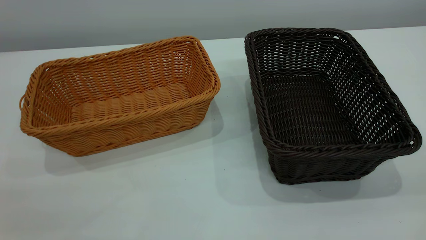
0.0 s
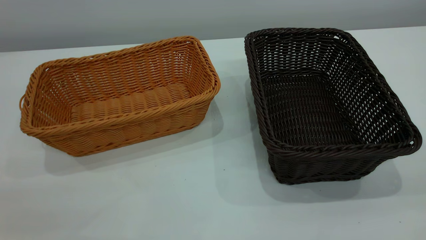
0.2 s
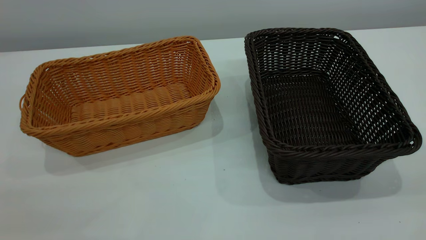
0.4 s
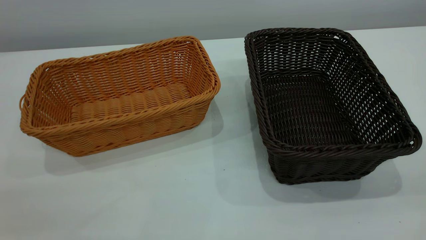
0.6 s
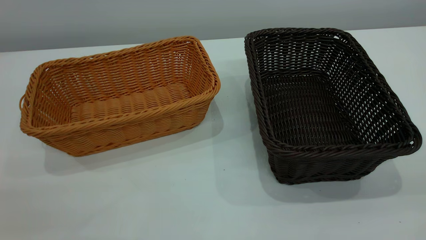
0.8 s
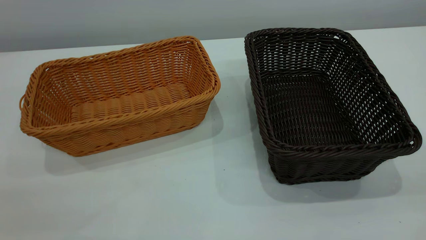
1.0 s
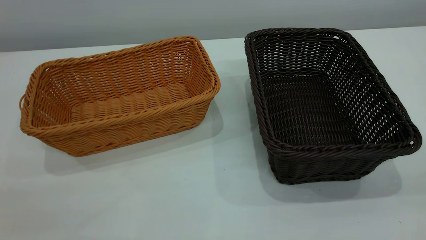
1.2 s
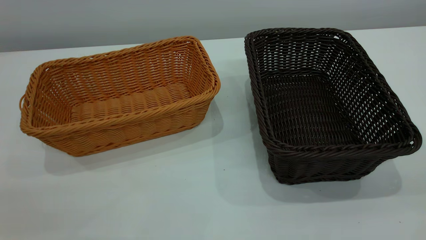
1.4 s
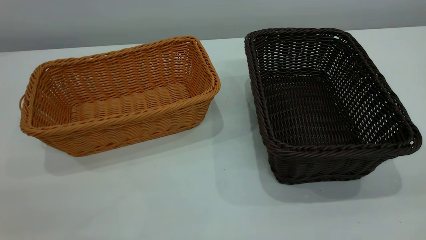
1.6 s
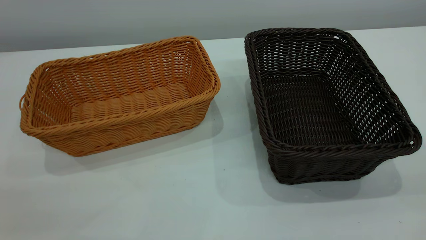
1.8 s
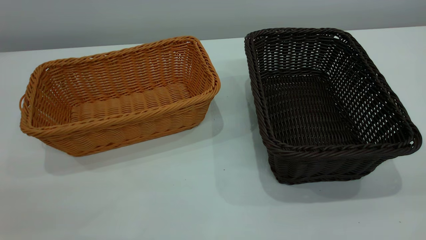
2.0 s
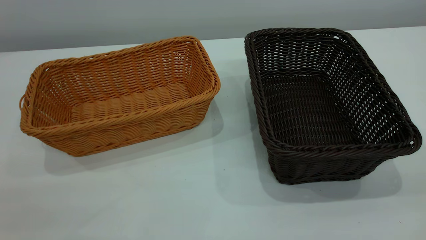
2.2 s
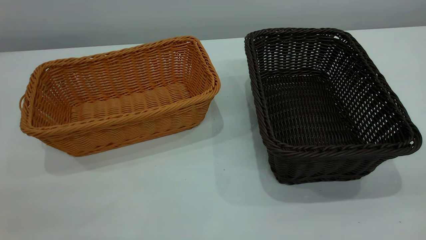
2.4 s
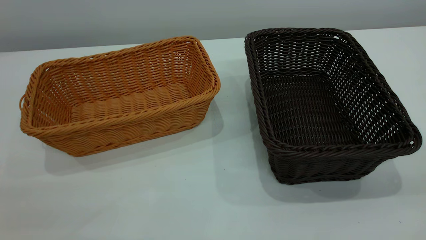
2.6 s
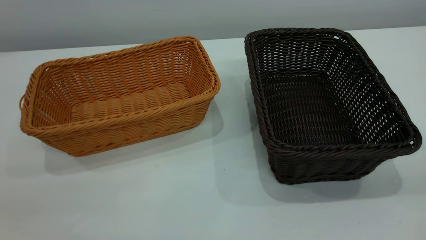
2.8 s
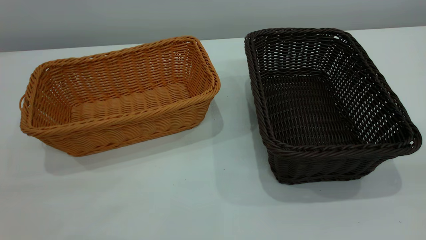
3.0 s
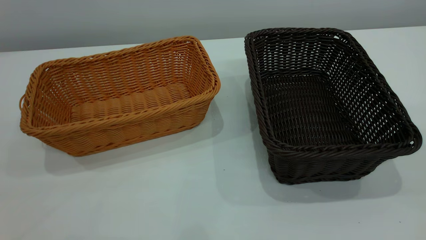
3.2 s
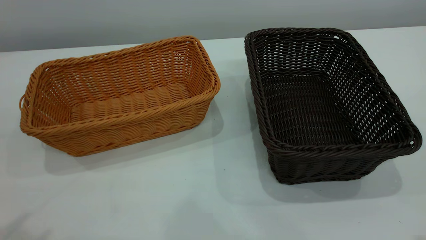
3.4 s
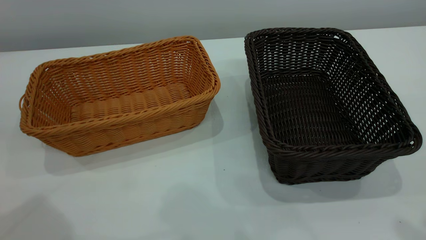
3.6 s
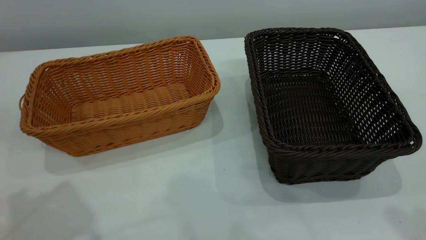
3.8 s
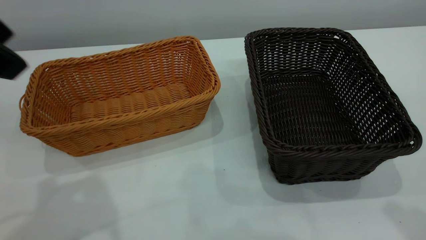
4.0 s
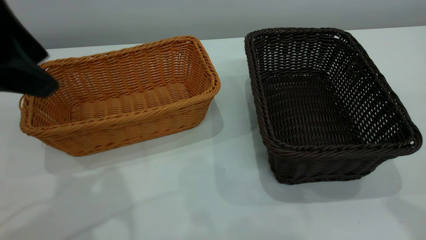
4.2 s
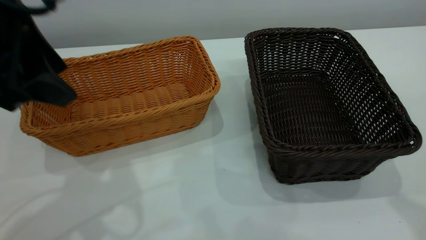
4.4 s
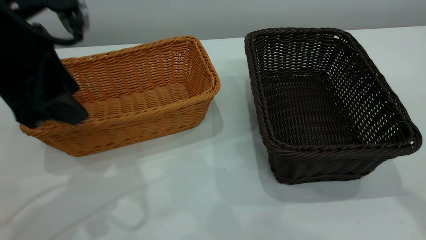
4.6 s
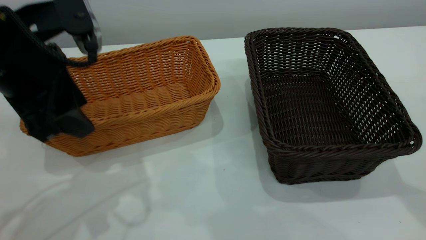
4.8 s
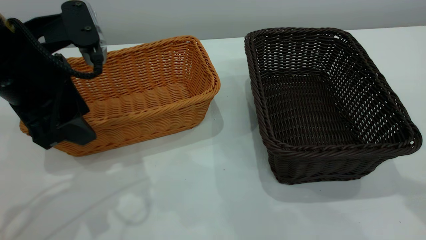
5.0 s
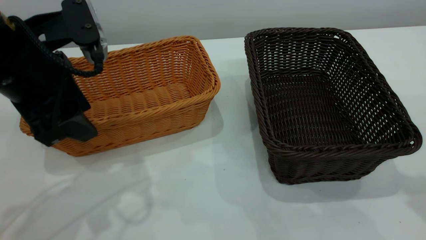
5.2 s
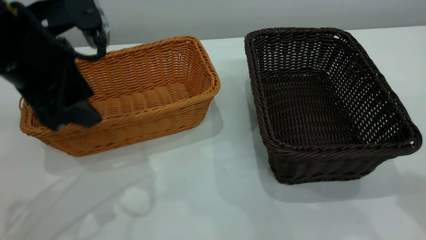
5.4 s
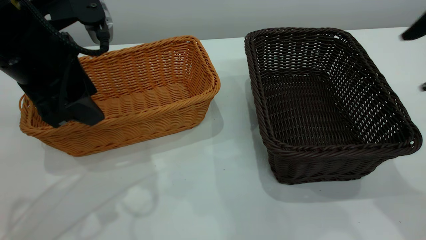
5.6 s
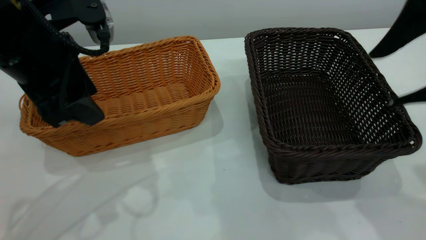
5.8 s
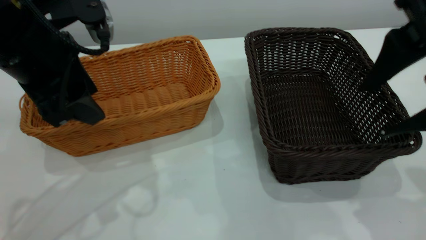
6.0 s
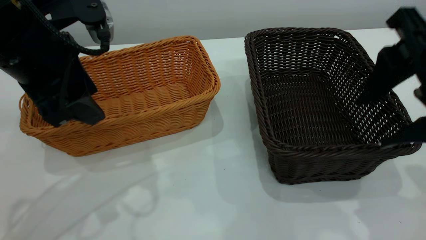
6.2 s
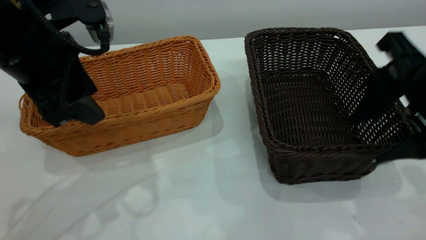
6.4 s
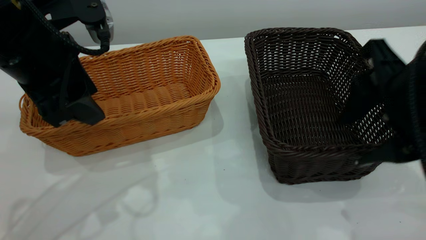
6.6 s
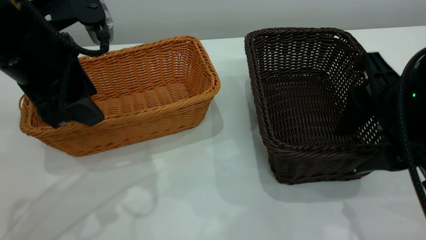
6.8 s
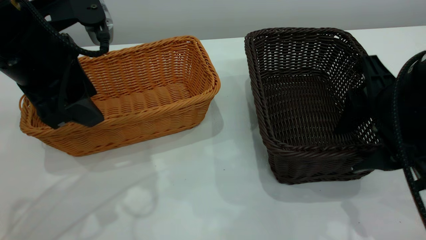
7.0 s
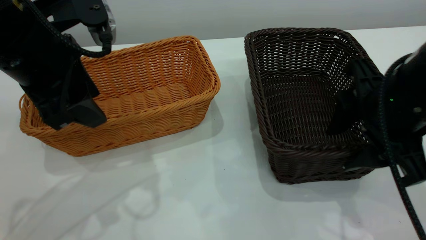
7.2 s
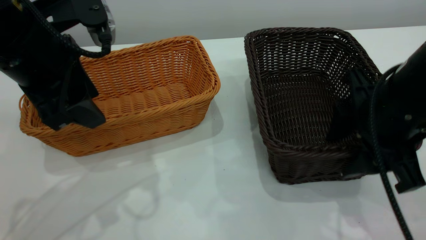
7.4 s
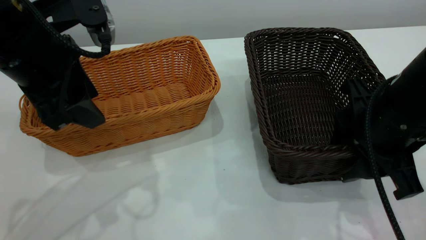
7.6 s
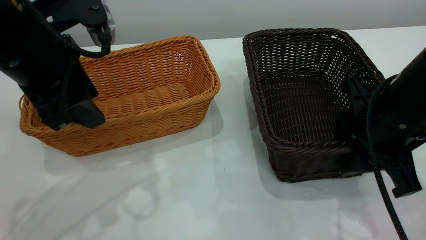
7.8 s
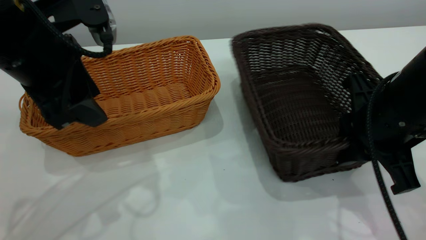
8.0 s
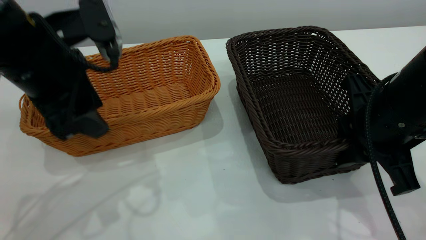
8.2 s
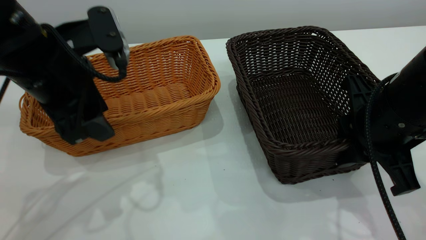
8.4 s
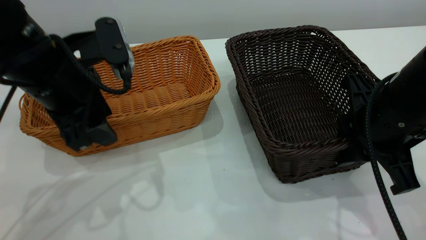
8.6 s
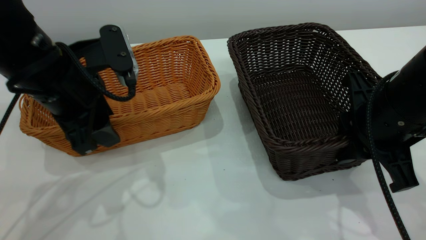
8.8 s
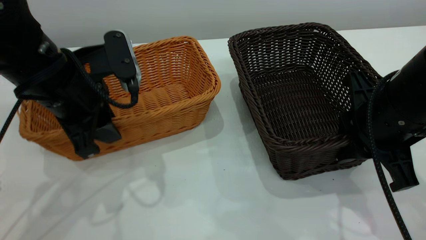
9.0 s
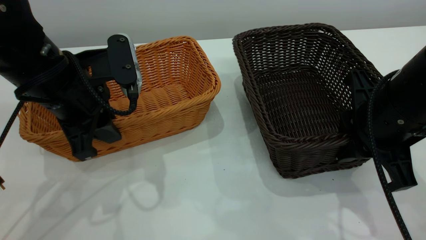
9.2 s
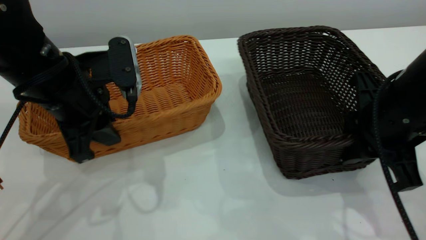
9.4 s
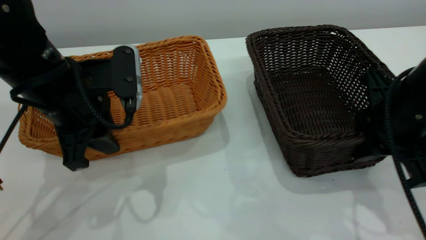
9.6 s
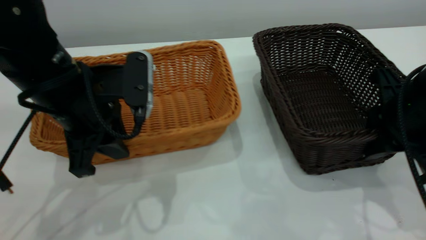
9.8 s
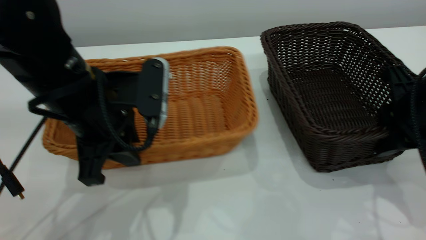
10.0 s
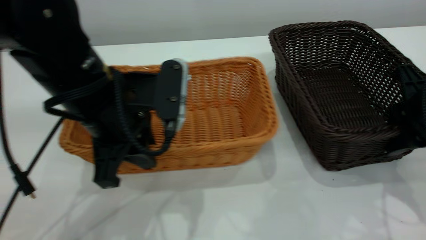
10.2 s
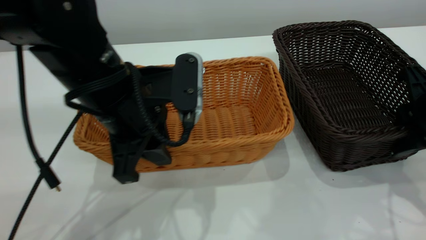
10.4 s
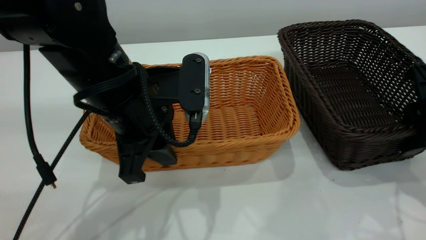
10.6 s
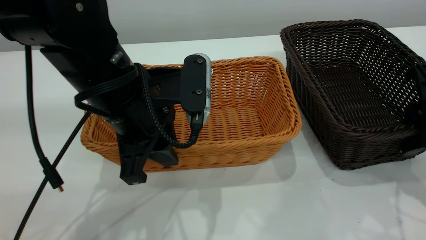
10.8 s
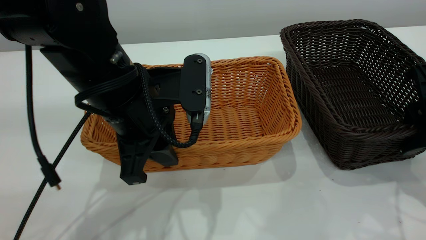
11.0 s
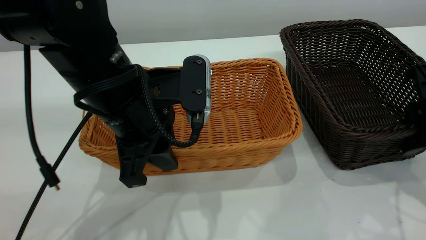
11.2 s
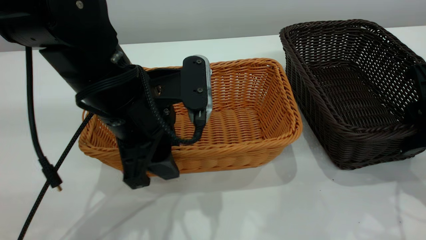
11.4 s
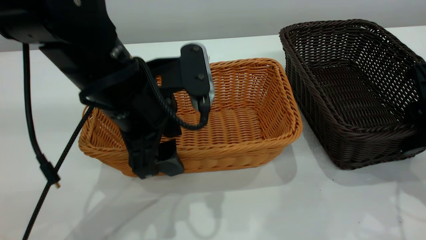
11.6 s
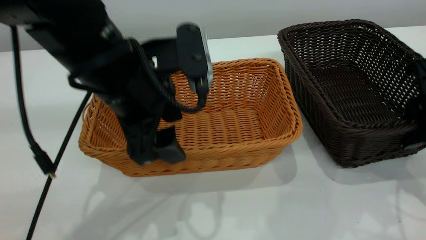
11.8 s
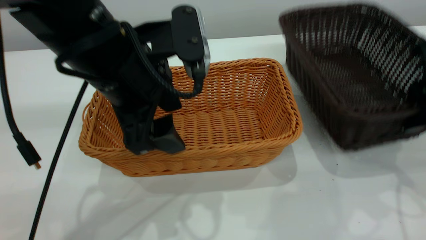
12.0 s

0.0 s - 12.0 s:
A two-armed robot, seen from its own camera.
Task of the whole recording: the left gripper grasp the brown basket and place it in the center of the table, the right gripper grasp the black basket and place it inside the brown one.
Step, 0.0 s - 11.6 s: Place the light-colored basket in the center.
0.0 s - 1.6 s: Both grippers stay put.
3.0 s - 4.4 s: The left gripper shifts some 25 cm forward and downward.
4.4 s - 6.0 s: The left gripper shifts by roughly 5 cm, while the right gripper goes approximately 15 cm downward, forward and to the left.
6.0 s - 7.6 s: The right gripper shifts about 10 cm downward.
7.6 s - 9.0 s: The left gripper shifts about 5 cm downward, and closes its fingers, while the right gripper closes up.
9.0 s - 10.4 s: The grippers both shift to the right by roughly 10 cm.
10.4 s - 12.0 s: The left gripper opens its fingers.

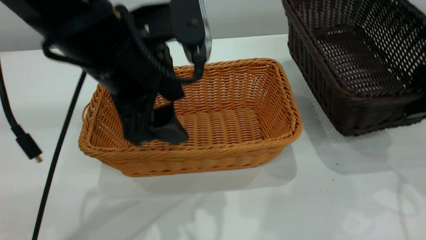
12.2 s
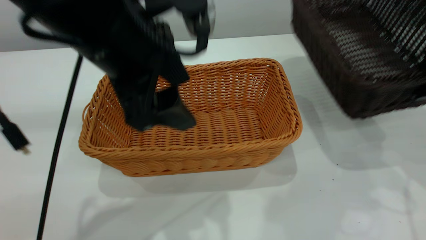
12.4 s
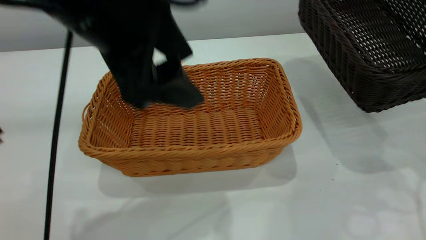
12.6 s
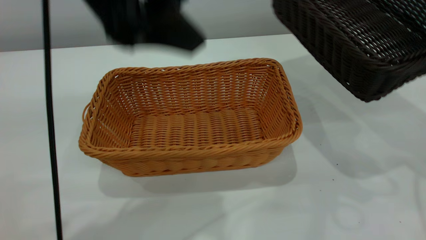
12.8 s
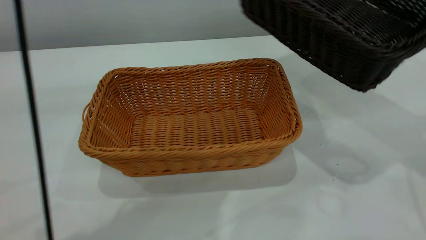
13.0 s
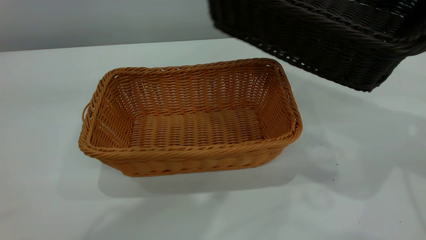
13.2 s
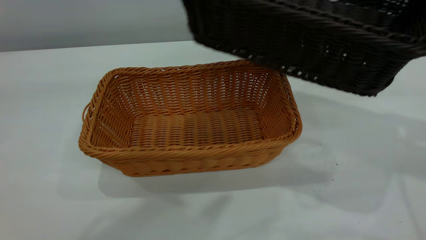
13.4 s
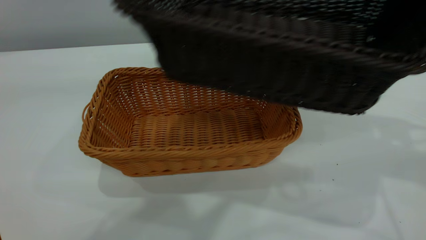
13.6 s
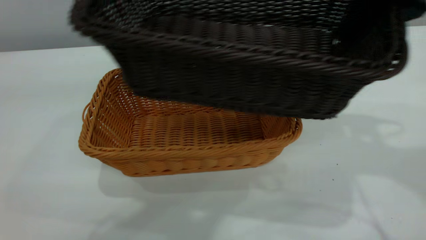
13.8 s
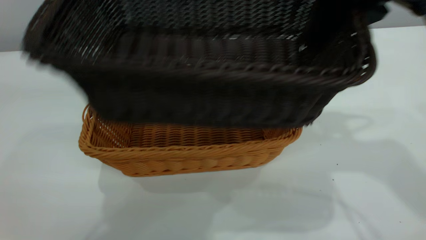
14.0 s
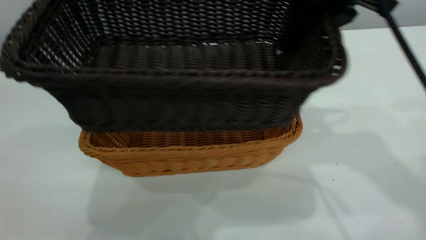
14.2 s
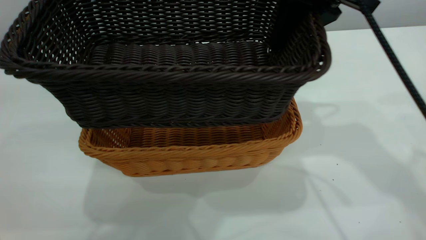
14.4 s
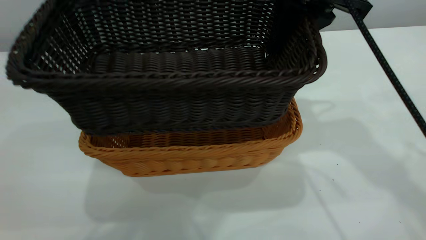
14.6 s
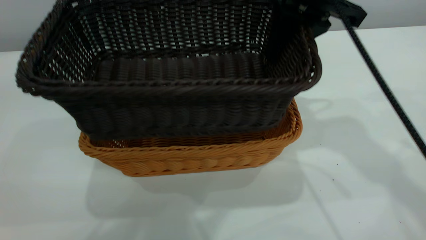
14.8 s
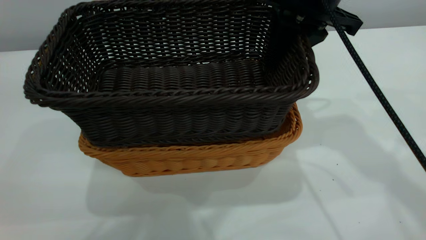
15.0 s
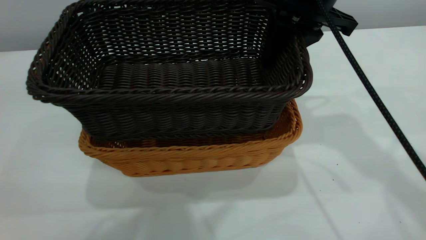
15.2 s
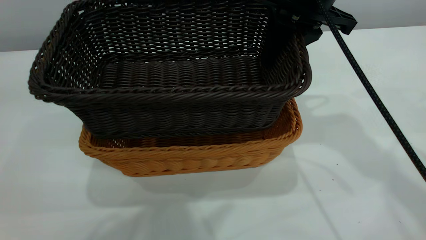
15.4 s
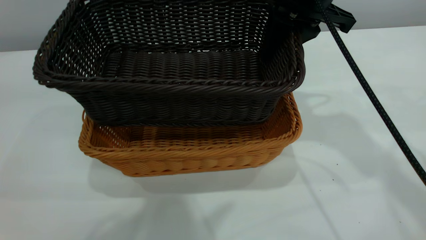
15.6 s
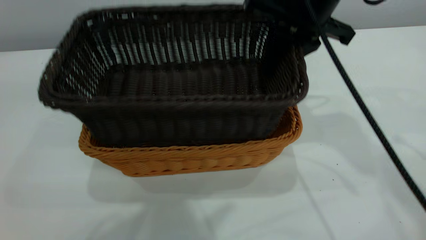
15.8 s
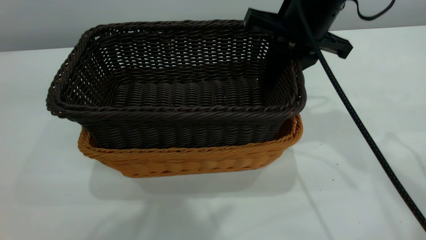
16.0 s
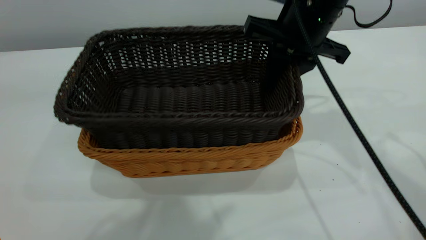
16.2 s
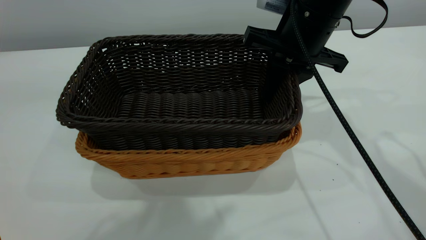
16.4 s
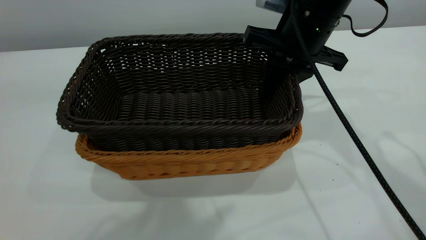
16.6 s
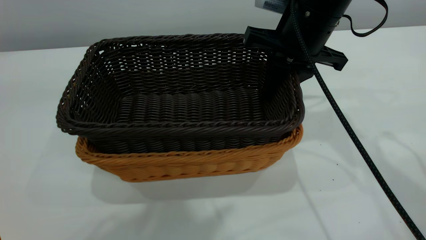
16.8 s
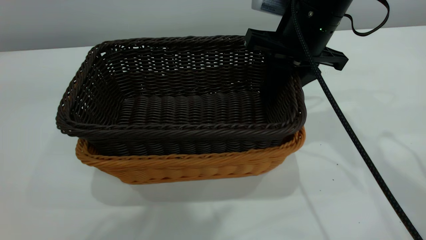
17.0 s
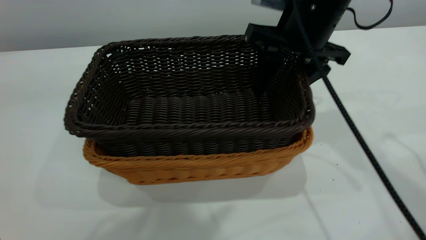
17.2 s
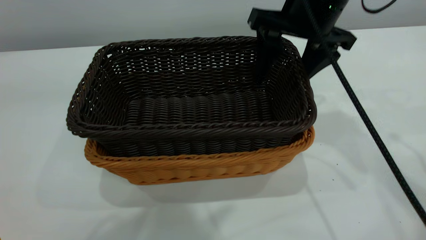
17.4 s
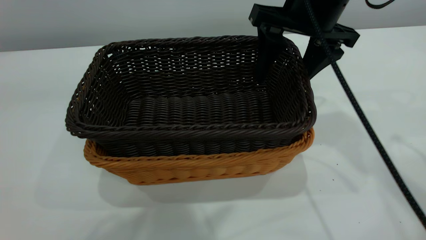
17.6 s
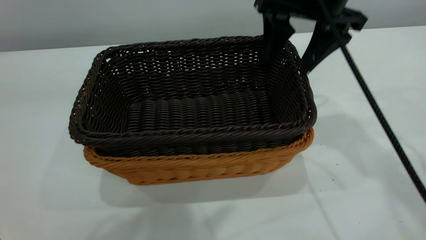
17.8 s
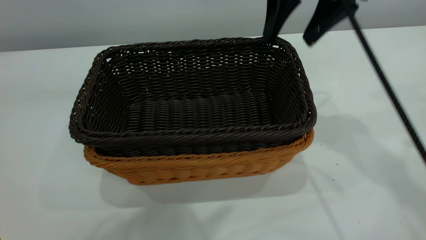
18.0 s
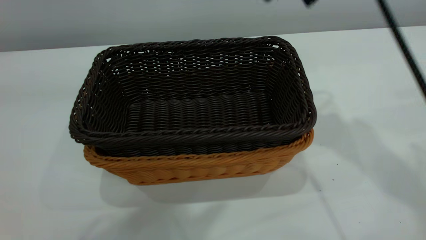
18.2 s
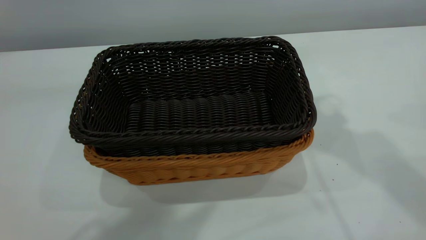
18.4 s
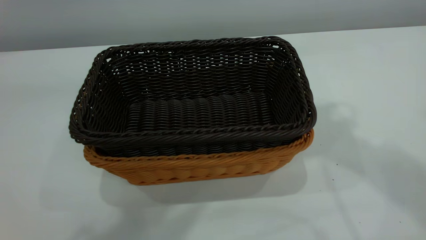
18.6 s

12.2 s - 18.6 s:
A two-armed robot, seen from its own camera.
Task of the whole recording: the left gripper grasp the brown basket and place it in the center of the table, the right gripper grasp the black basket and place it inside the brown one.
Step, 12.2 s - 12.6 s: Pick up the light basket with the right gripper.
Step, 12.8 s - 18.0 s: Place the dark basket on top of the light basket.
12.2 s - 13.8 s: The right gripper goes approximately 15 cm upward and to the left; the left gripper heads upward, covering roughly 25 cm.
13.8 s - 15.4 s: The right gripper heads forward and to the left, covering roughly 10 cm.
15.4 s - 17.0 s: The right gripper heads downward, covering approximately 5 cm.
17.0 s - 18.6 s: The right gripper shifts roughly 25 cm upward, and opens and closes again; the left gripper closes.
